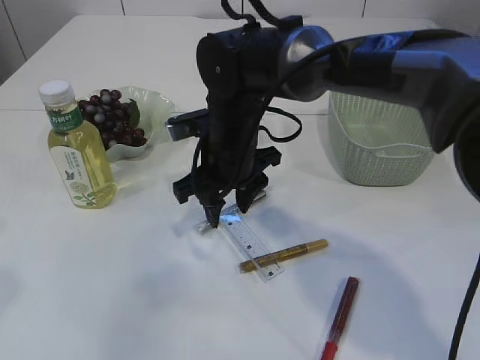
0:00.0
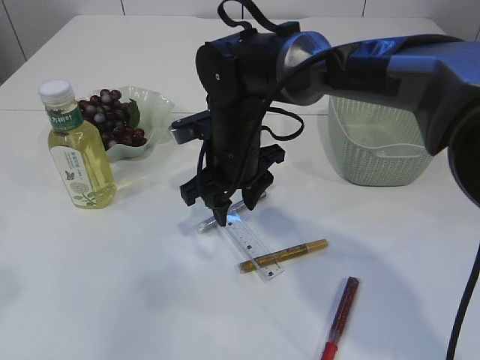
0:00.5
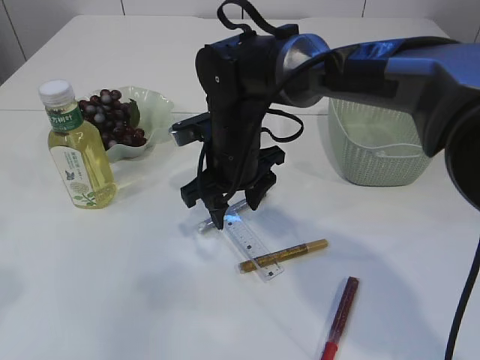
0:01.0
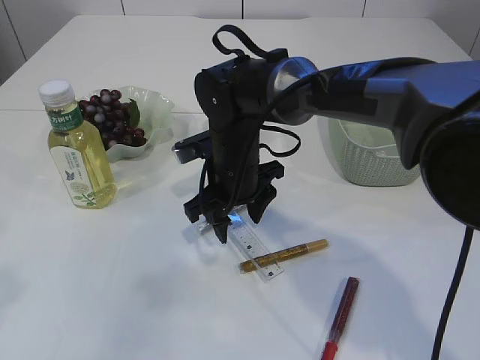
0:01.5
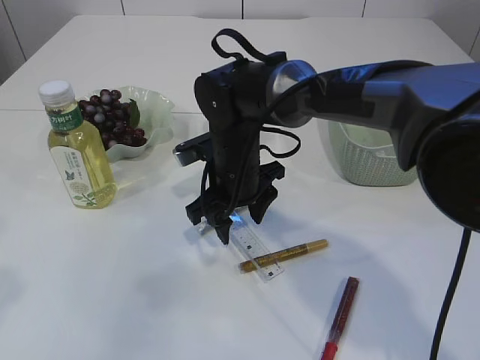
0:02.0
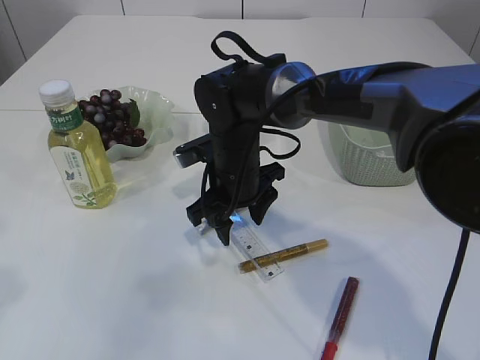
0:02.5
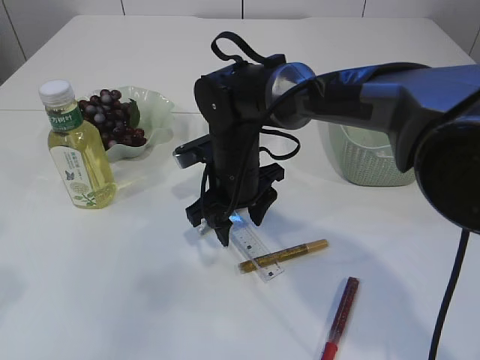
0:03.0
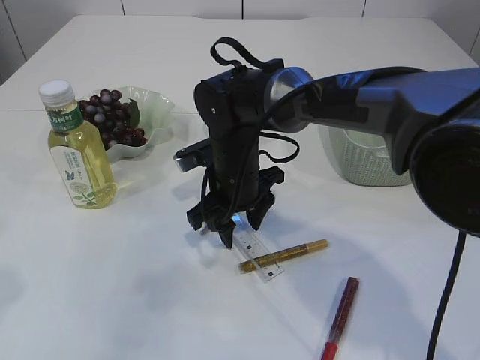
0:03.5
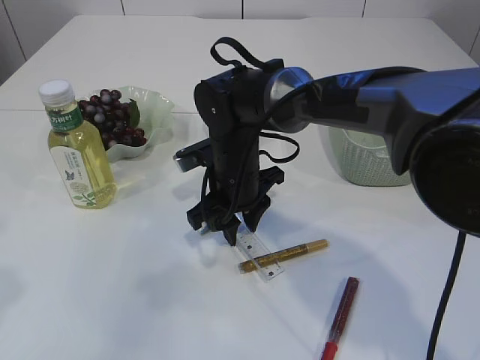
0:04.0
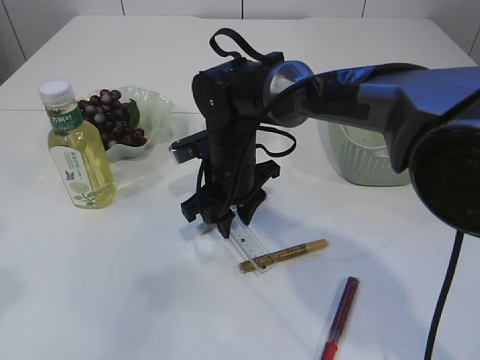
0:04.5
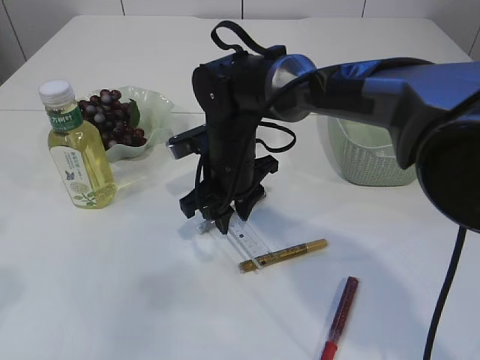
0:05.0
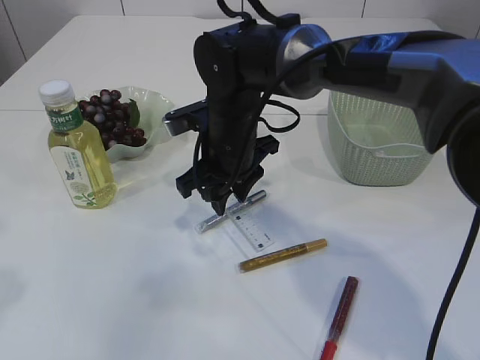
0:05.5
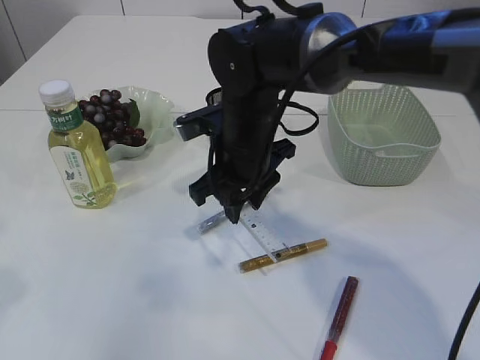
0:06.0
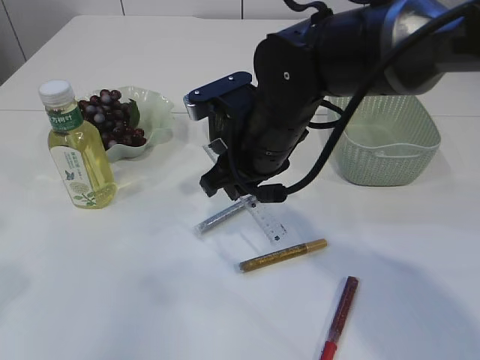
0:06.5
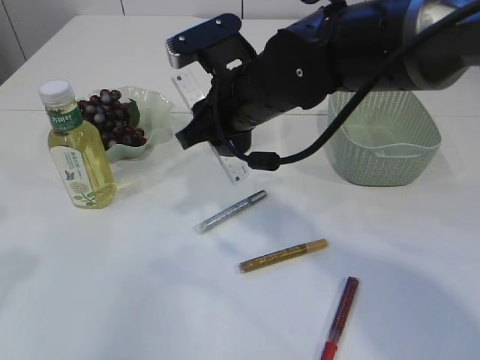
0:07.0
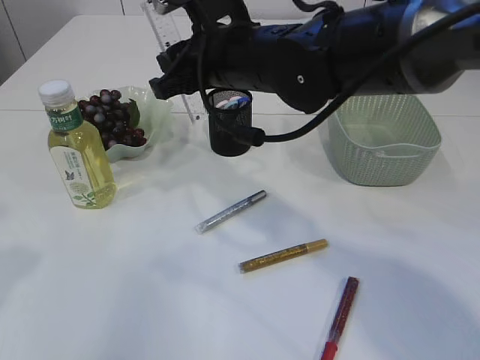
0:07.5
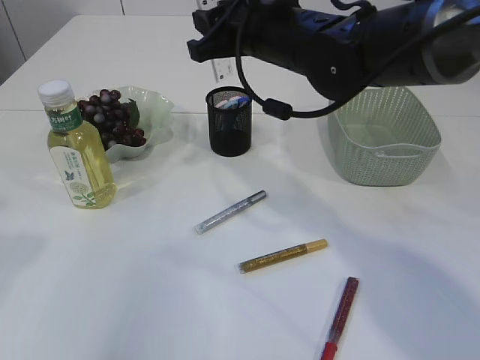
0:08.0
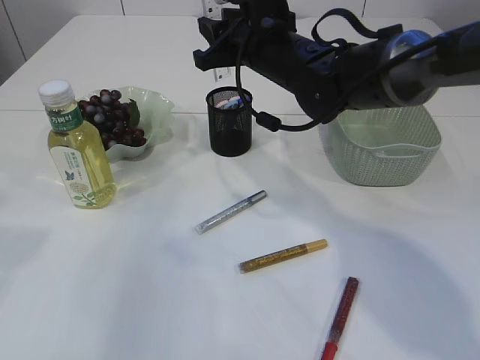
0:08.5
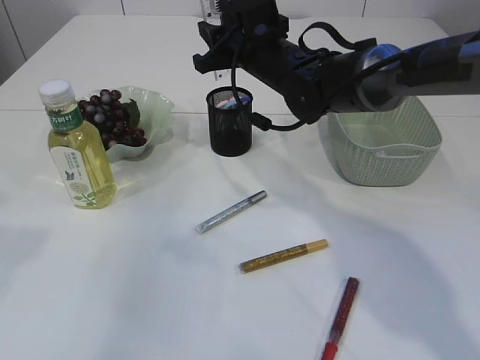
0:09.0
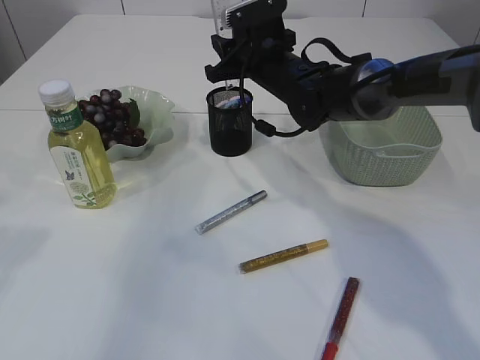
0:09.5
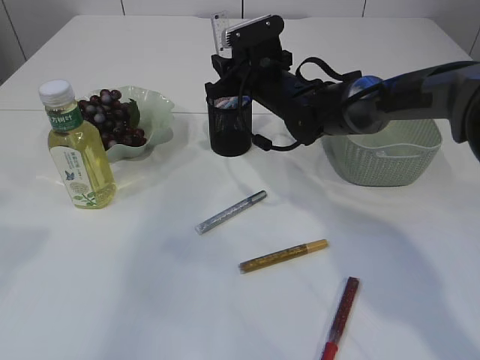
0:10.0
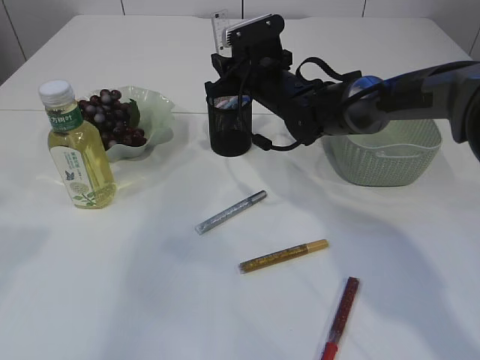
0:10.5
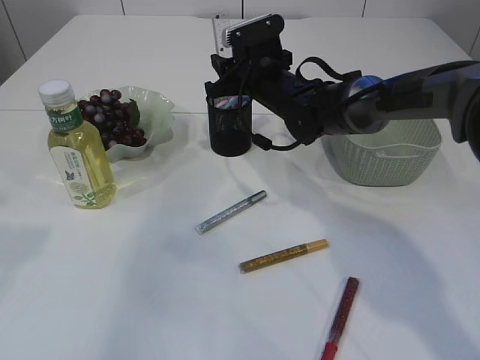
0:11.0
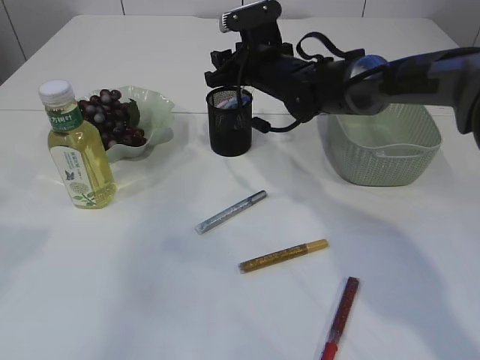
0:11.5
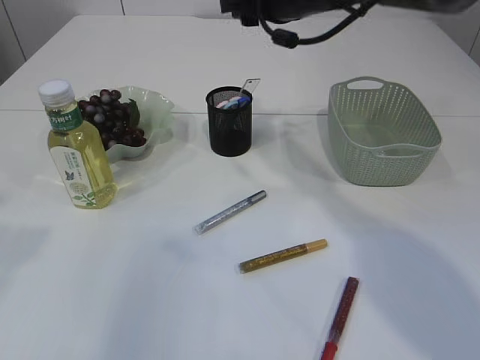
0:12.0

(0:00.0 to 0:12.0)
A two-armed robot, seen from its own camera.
Step, 0:00.0 - 0:05.5: pick up the ruler.
Step, 0:06.0 - 0:11.5: Place the ruler into the pen holder.
0:00.0 - 0:02.0: The grippers move only a little.
0:02.0 - 0:04.0: The right gripper closes.
0:04.0 - 0:06.0: The right gripper moves upward, about 5 cm.
0:06.0 - 0:08.0: The right gripper is displaced upward by approximately 10 cm.
0:08.0 - 0:10.0: The right gripper moves downward and forward, roughly 15 cm.
0:10.0 - 0:12.0: The right gripper travels upward by roughly 15 cm.

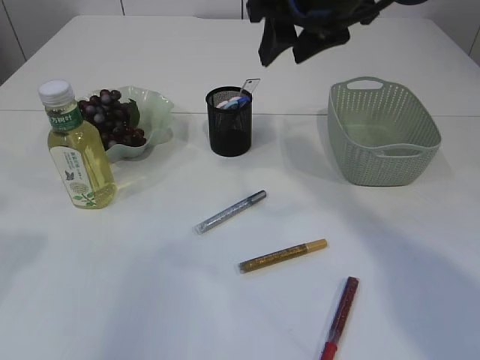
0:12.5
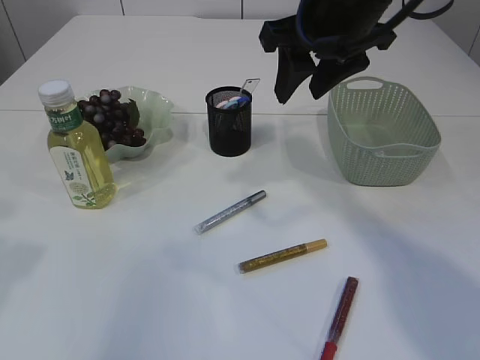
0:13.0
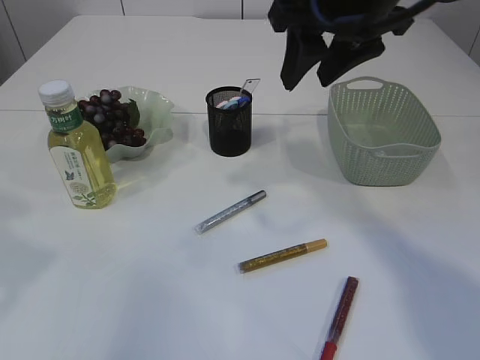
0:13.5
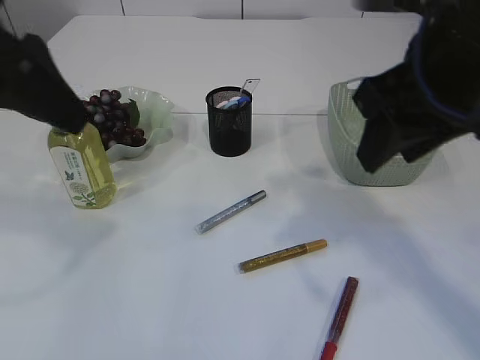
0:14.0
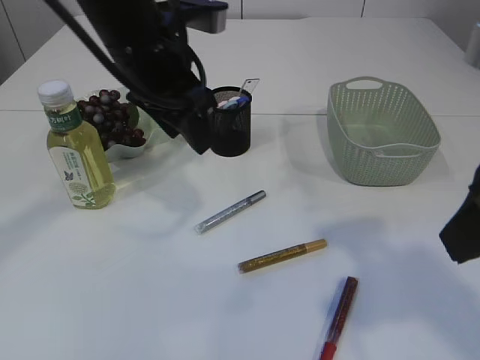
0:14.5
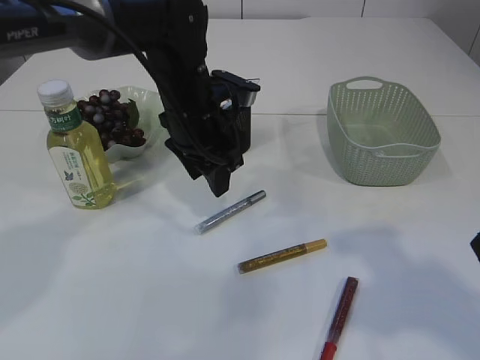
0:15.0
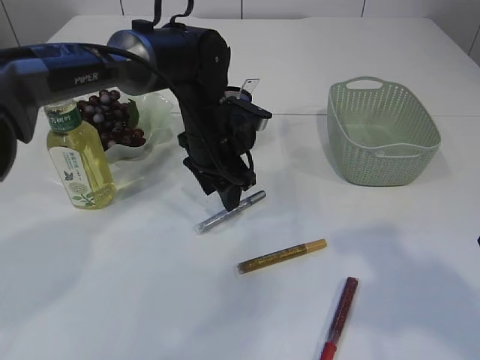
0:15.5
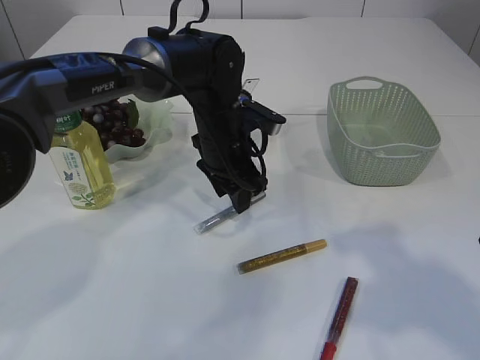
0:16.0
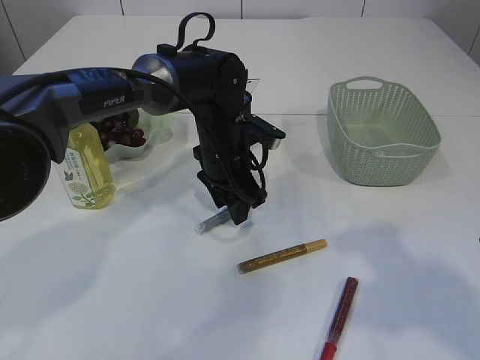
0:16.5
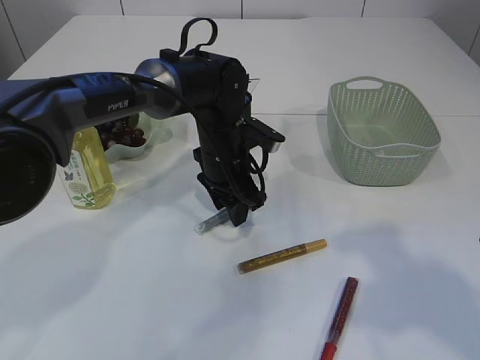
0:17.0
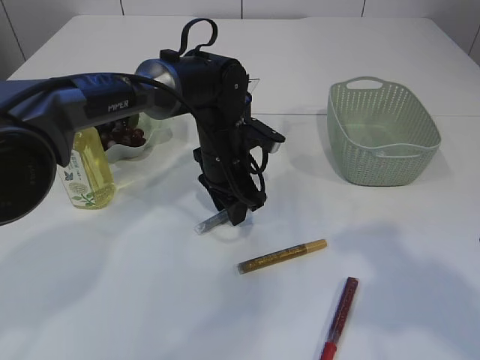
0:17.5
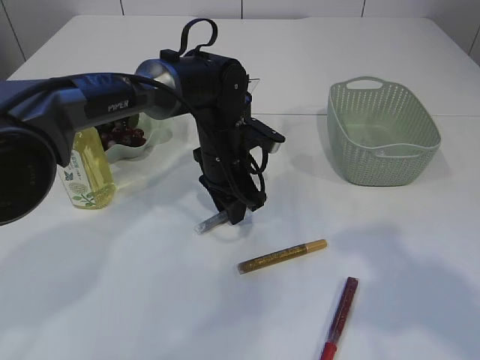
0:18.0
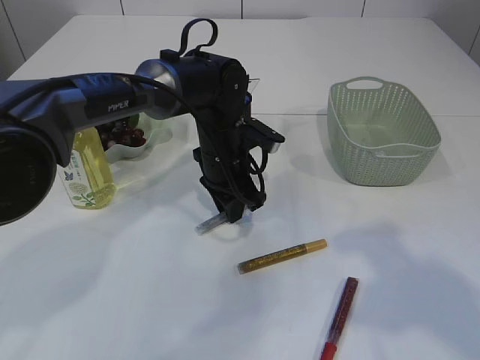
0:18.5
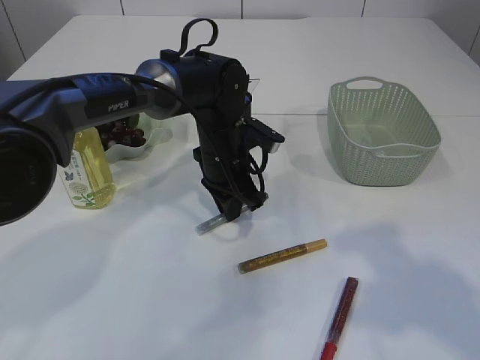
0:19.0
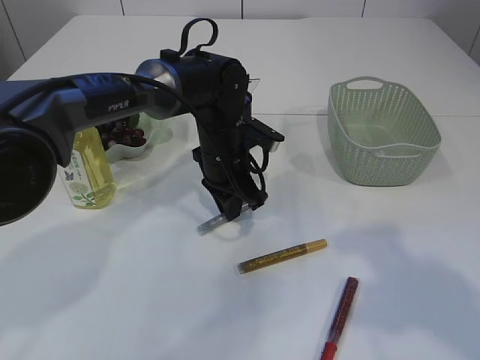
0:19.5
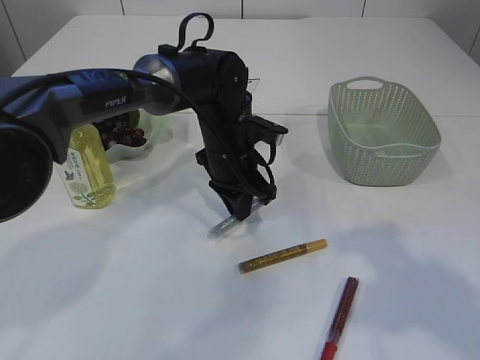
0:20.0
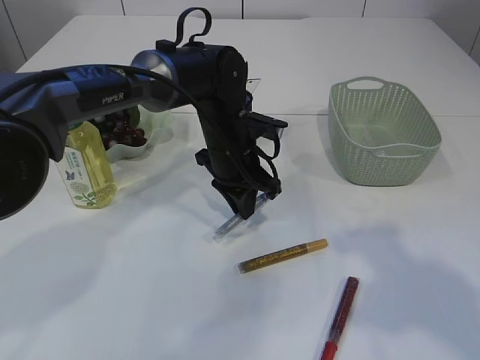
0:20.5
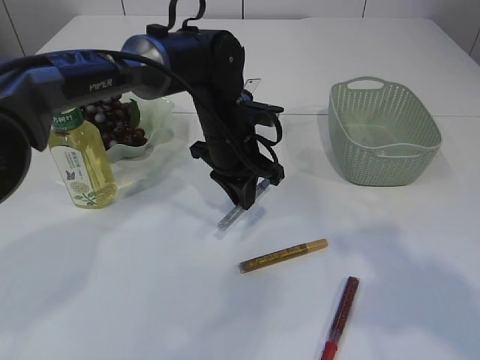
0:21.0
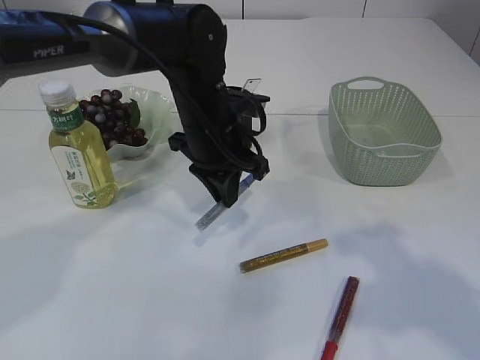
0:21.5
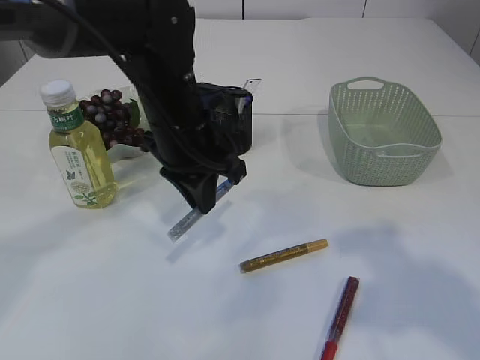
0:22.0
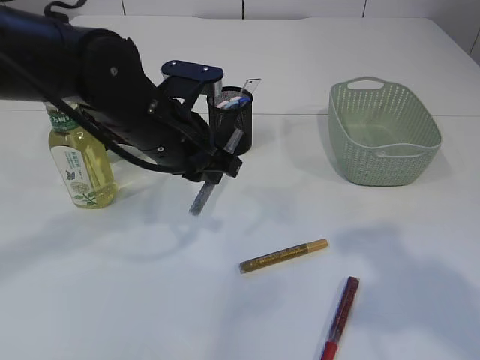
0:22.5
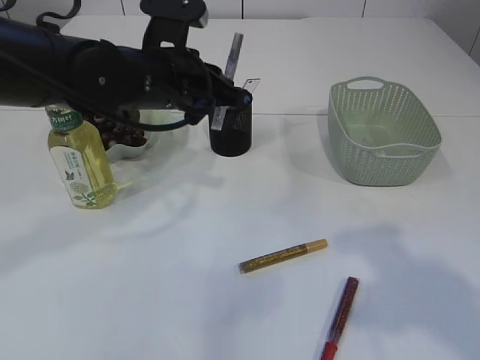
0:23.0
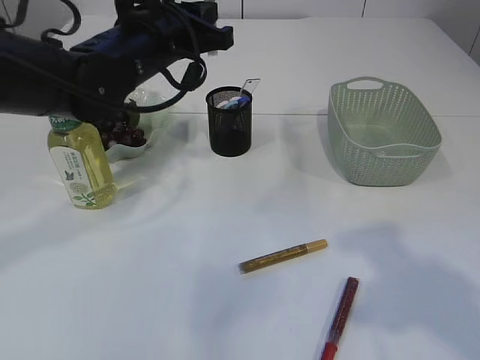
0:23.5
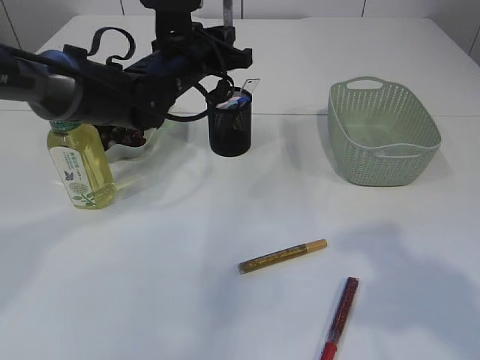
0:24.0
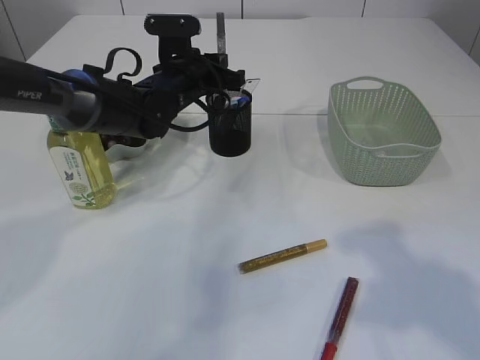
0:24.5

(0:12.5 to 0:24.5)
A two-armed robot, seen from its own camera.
Step, 0:12.5 - 0:22.0: pick up the silver glue.
0:12.5 - 0:14.5: The left gripper is displaced to the right and forward by approximately 25 cm, while the right gripper shifts approximately 25 cm backward and to the right.
0:14.5 - 0:16.5: The left gripper travels downward by roughly 15 cm.
0:16.5 - 0:18.5: The two grippers keep their place.
0:18.5 - 0:20.5: There are only small adjustments of the grippers.
0:20.5 - 0:22.5: The left gripper is displaced backward, upward and to the left by some 15 cm.
0:22.5 - 0:24.5: The left gripper travels forward by some 15 cm.

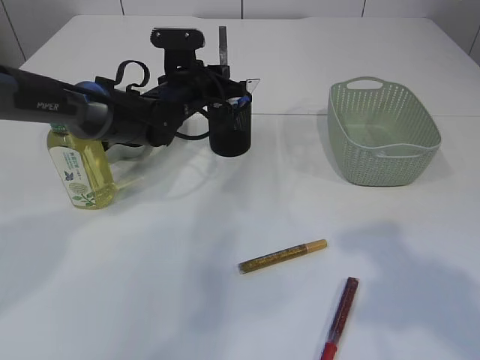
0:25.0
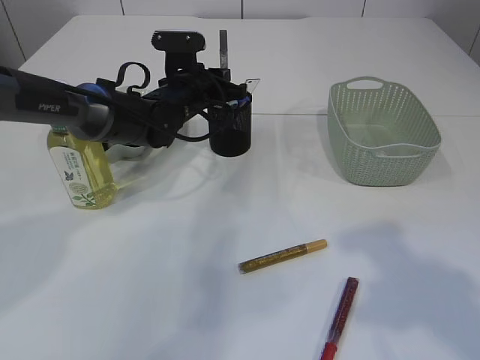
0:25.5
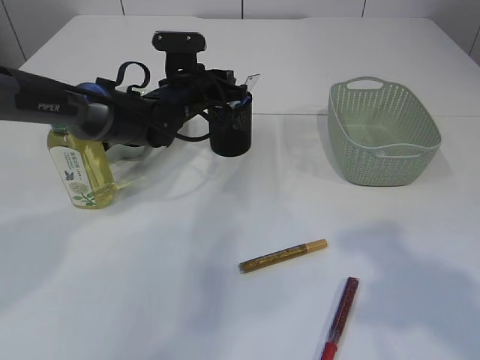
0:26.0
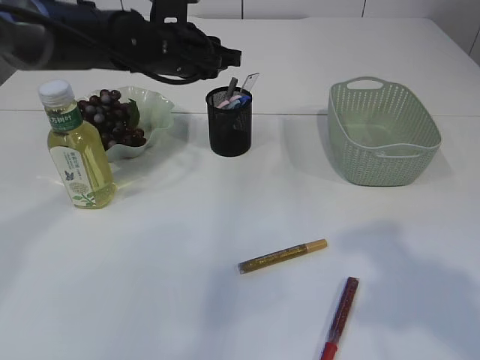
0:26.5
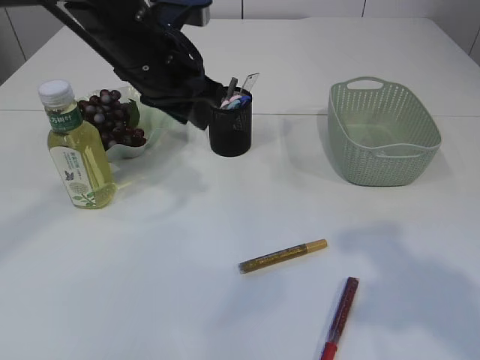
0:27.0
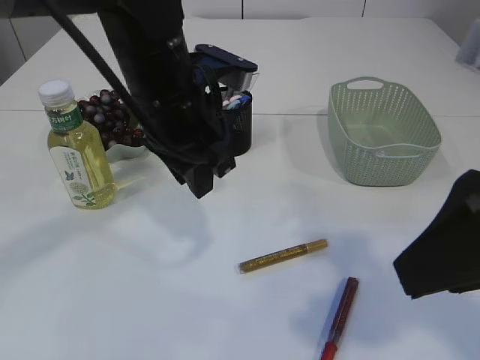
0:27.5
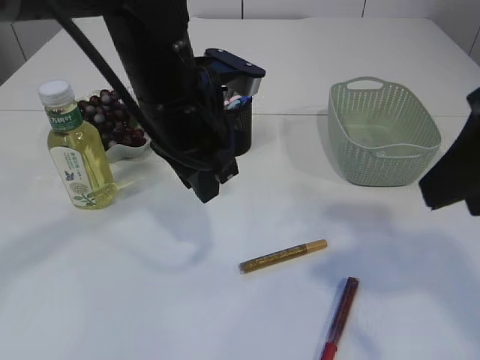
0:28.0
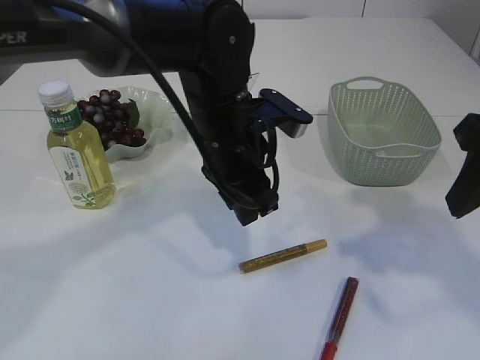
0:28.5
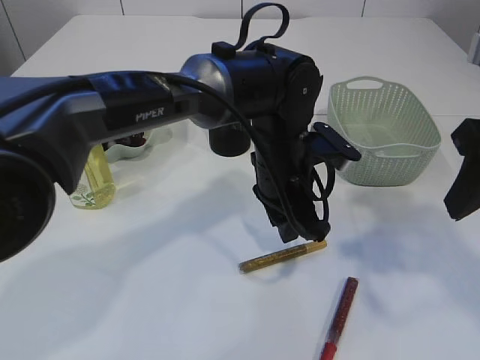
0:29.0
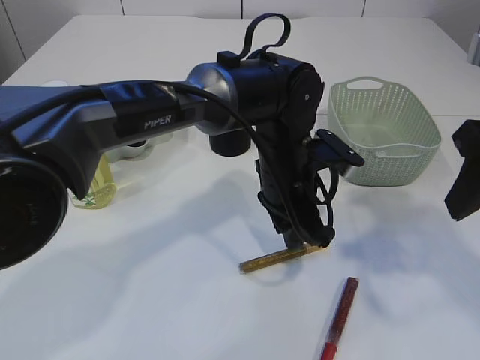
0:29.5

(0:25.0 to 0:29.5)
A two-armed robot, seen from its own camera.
0:25.0 - 0:27.0: The left gripper travels upward and backward by about 15 cm.
0:27.0 - 0:29.5: The left gripper goes approximately 20 cm to the right and downward, while the right gripper heads forward, covering approximately 10 cm.
